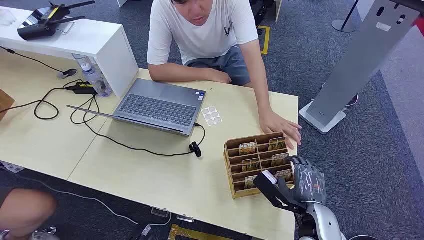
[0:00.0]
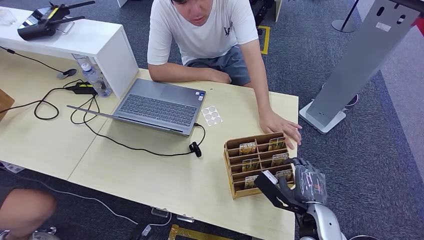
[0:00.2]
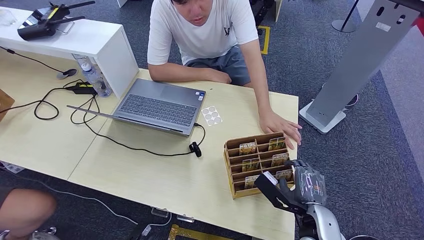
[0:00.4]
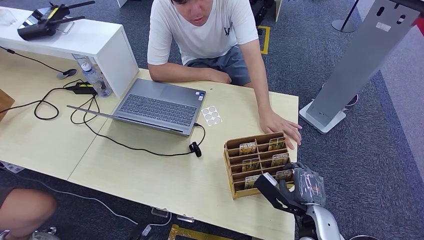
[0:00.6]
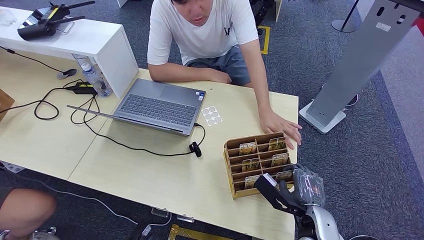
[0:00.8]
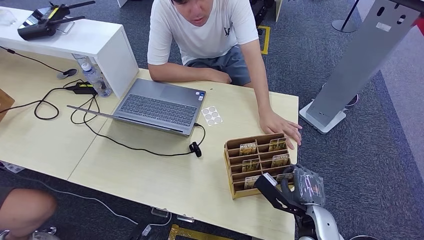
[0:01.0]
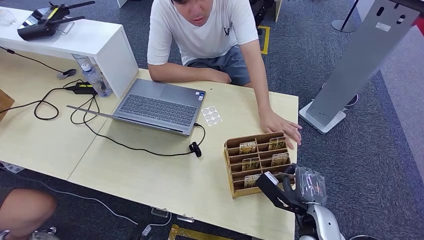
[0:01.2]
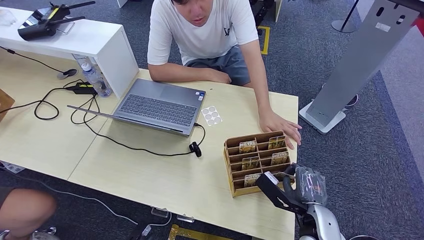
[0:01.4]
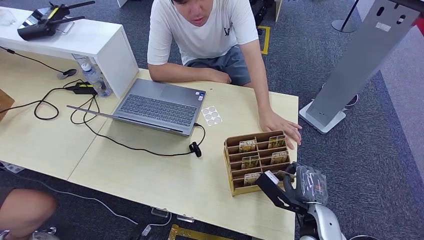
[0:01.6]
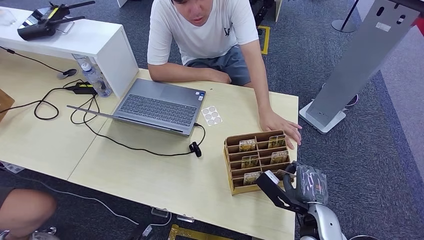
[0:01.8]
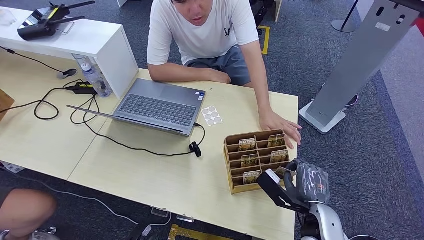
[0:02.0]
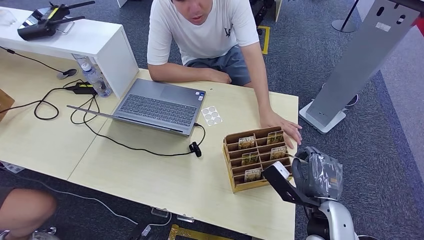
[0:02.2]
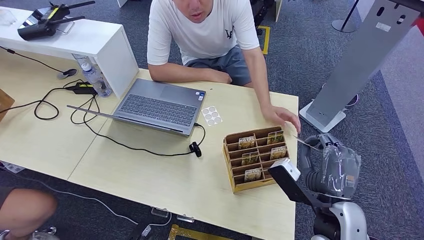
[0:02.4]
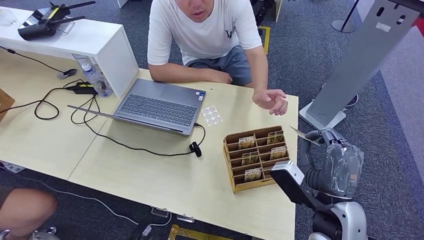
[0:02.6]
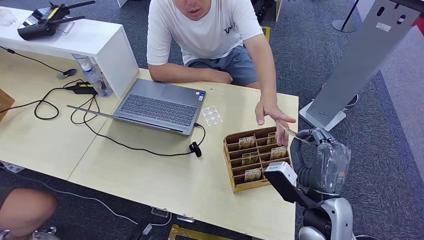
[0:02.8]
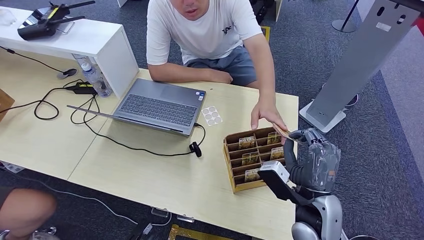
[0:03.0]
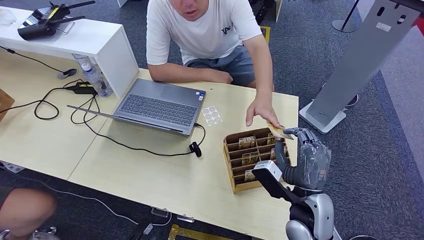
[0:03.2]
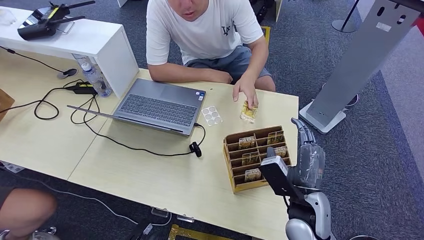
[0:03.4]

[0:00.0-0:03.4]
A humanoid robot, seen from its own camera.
Step, 0:00.0 to 0:02.0: Pick up the room card from the card holder.
Step, 0:02.2 to 0:03.4: Hand the room card to the target.
